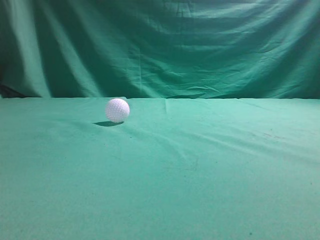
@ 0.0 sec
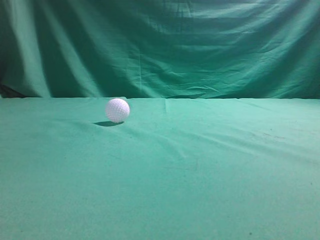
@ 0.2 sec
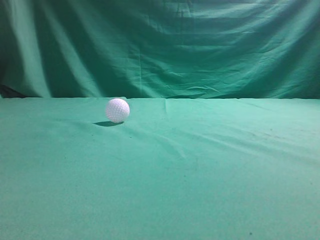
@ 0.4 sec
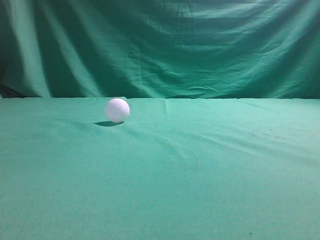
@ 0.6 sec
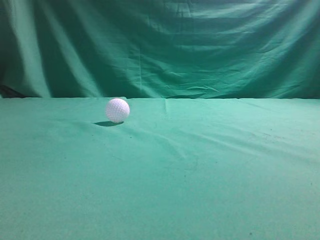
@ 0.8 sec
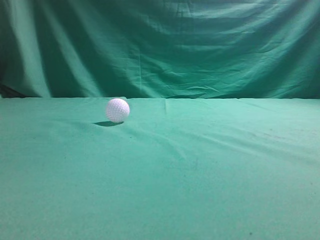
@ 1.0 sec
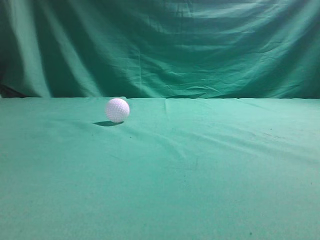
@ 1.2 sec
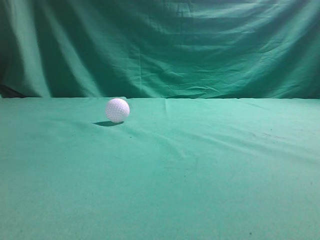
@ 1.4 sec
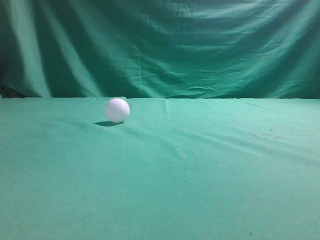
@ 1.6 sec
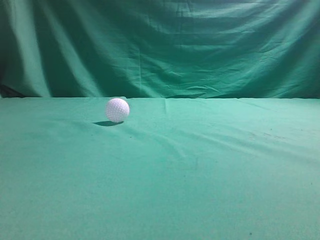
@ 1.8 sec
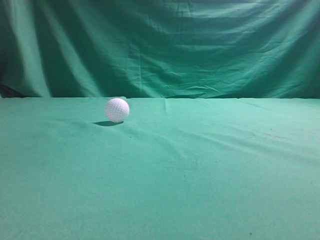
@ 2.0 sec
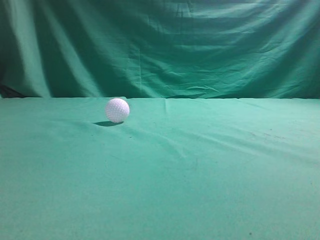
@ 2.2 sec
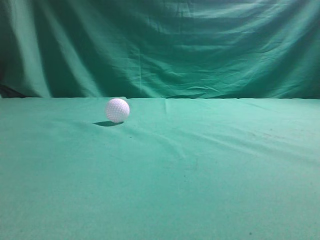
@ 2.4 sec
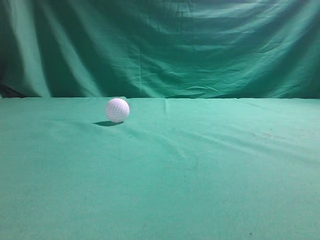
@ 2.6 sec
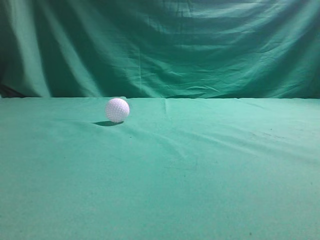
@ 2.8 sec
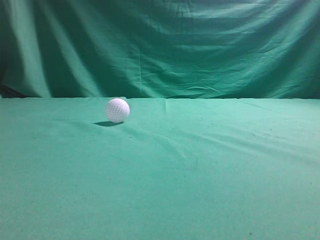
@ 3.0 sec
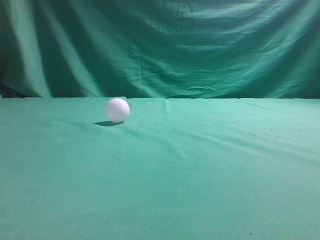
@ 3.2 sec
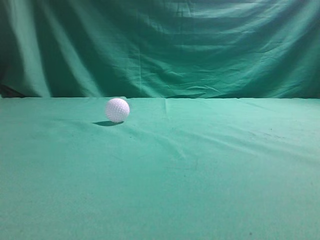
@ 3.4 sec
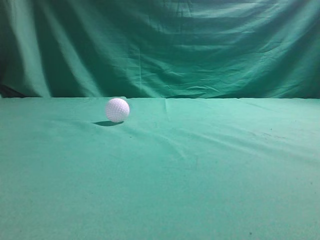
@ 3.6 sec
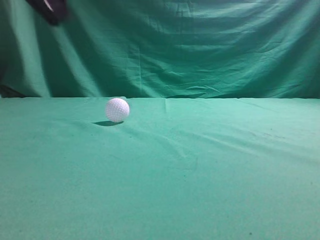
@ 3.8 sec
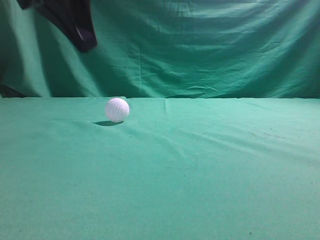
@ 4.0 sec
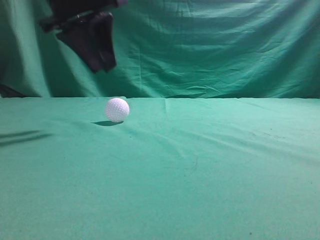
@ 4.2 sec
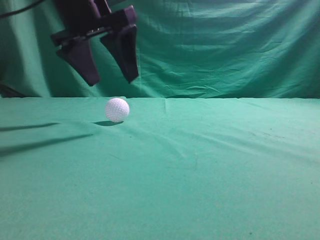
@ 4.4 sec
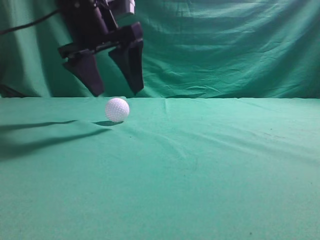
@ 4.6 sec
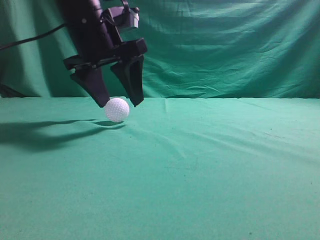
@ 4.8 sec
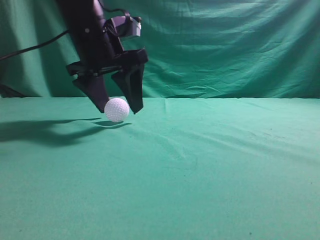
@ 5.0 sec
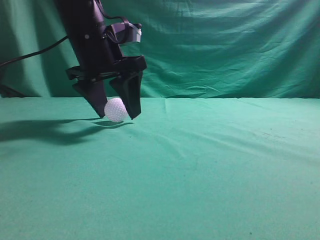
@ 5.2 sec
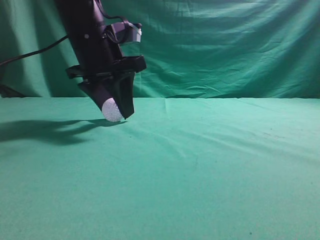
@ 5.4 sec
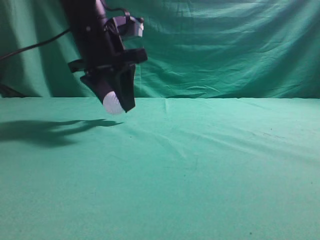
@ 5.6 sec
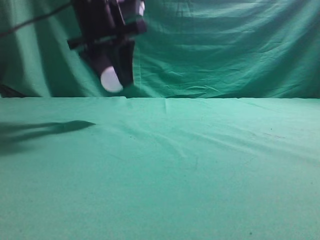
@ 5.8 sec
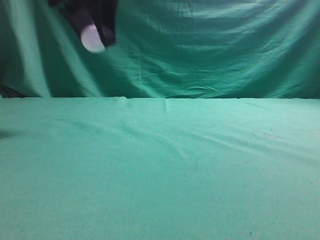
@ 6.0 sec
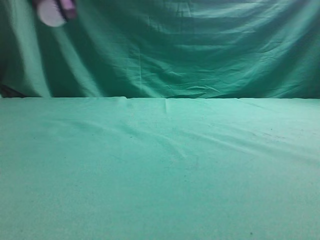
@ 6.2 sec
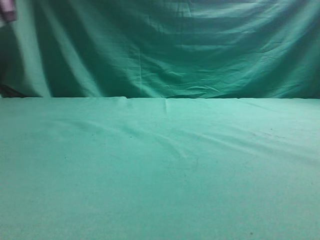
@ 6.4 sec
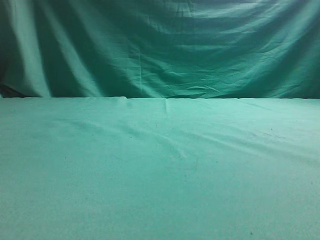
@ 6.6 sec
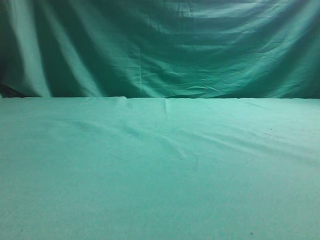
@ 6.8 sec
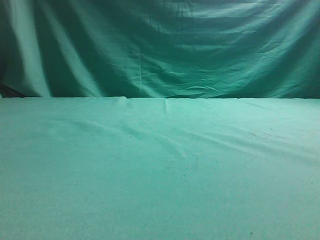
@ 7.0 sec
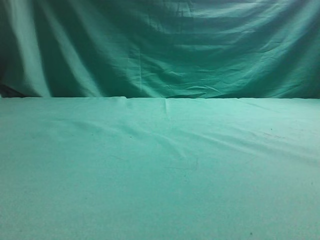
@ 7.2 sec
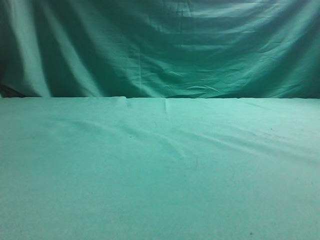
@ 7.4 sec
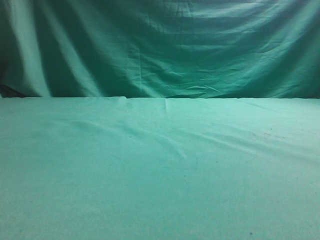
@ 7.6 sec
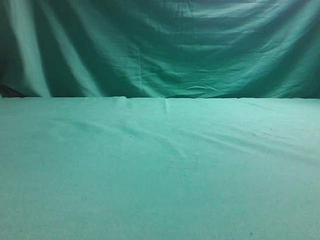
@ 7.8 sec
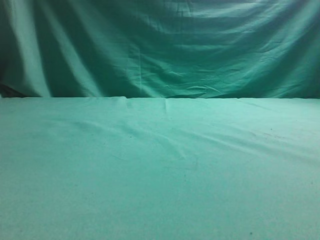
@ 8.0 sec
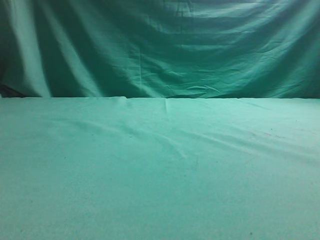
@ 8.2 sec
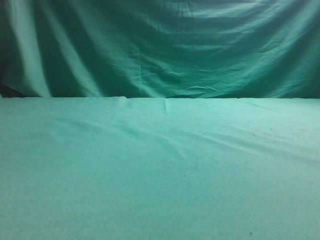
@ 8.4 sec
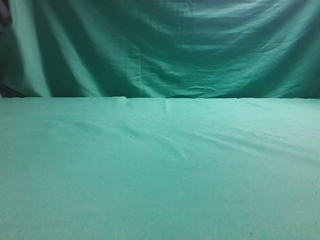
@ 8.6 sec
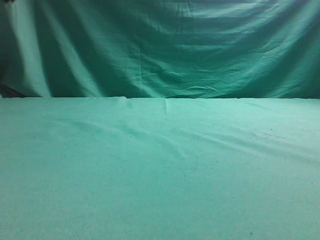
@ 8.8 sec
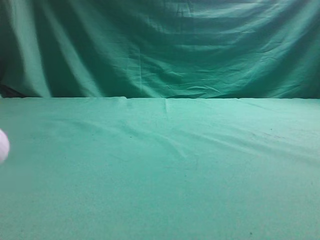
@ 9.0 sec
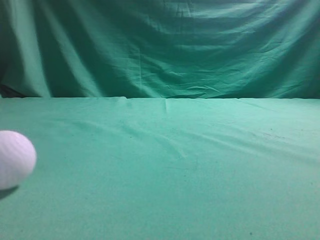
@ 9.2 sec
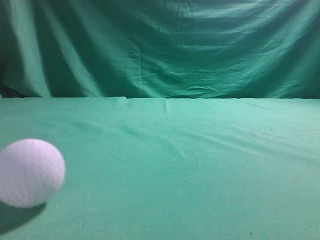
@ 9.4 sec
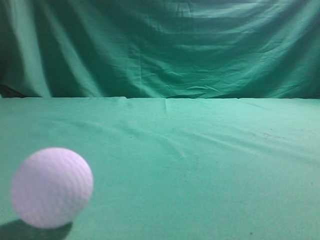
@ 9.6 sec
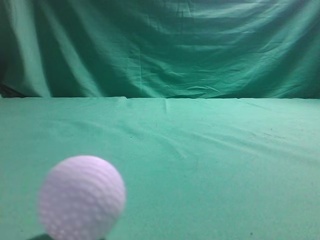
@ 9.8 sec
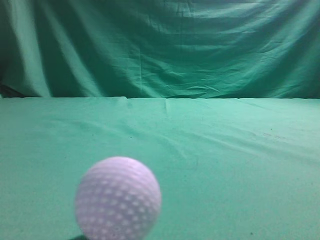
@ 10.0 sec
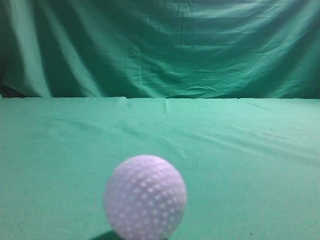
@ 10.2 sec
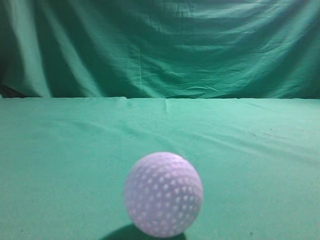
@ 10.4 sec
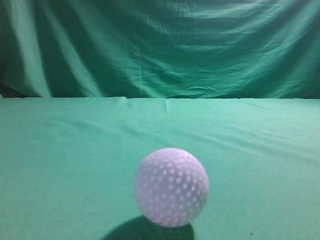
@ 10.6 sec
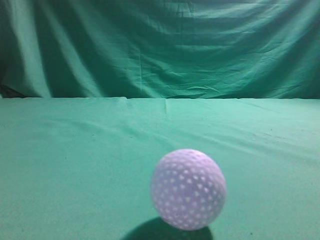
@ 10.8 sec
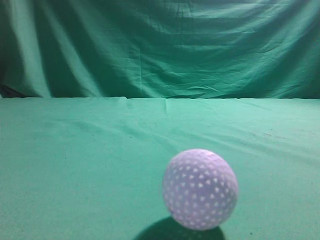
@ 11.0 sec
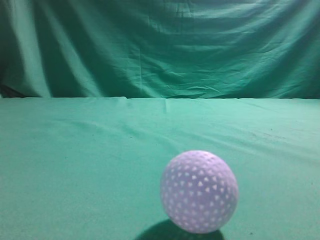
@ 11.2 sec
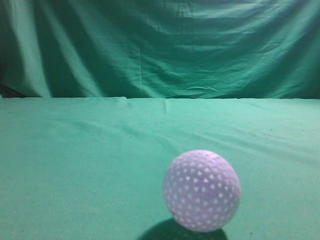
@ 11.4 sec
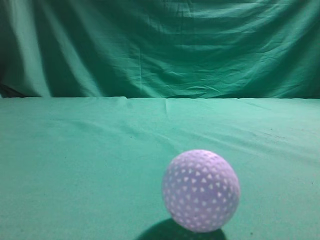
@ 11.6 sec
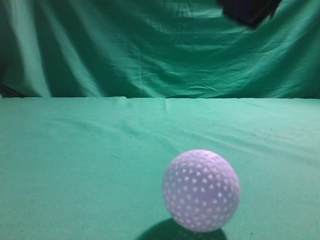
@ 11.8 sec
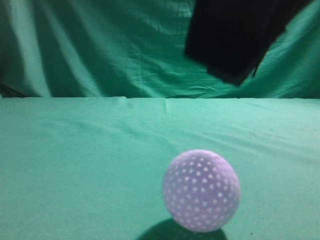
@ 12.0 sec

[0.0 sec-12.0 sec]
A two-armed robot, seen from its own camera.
Task of the whole recording: pick up the ball and place it on the plate, then pick up the ball from the plate and put it in the center of the table.
Step, 0.0 sec to 5.4 sec: Grab the spherical object with your left arm.
Step, 5.8 sec to 8.4 sec: Place the sphere on the white object.
3.0 sec to 4.4 sec: The left gripper moves forward and to the right, some 35 cm, and opens.
4.4 sec to 6.0 sec: The left gripper moves upward, some 10 cm, and closes.
6.0 sec to 7.6 sec: The left gripper moves to the left and downward, about 25 cm.
9.0 sec to 10.4 sec: The right gripper travels upward by approximately 10 cm. The left gripper shifts about 20 cm backward.
10.4 sec to 12.0 sec: The right gripper heads to the left, covering some 20 cm, and opens up.

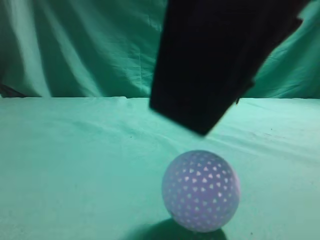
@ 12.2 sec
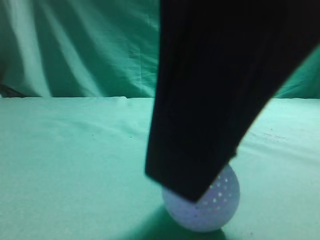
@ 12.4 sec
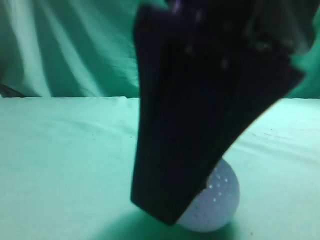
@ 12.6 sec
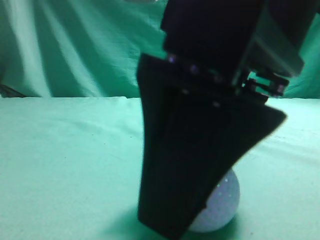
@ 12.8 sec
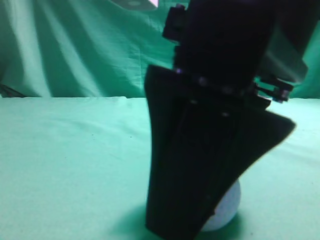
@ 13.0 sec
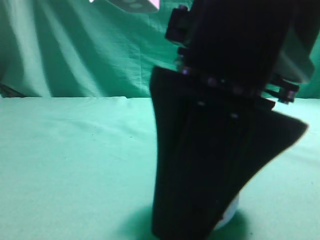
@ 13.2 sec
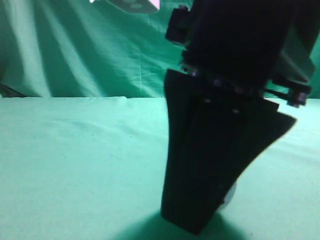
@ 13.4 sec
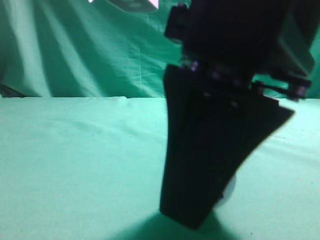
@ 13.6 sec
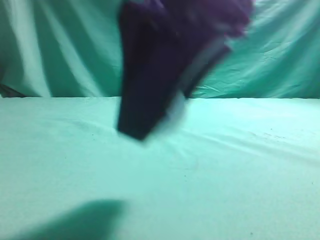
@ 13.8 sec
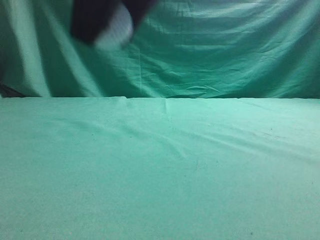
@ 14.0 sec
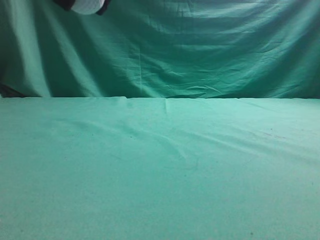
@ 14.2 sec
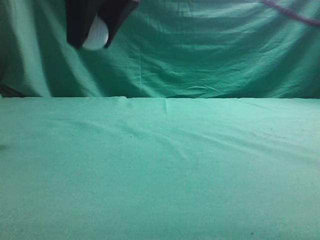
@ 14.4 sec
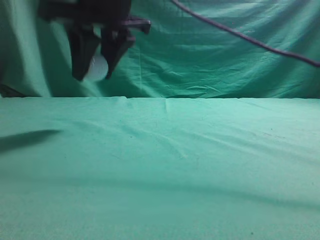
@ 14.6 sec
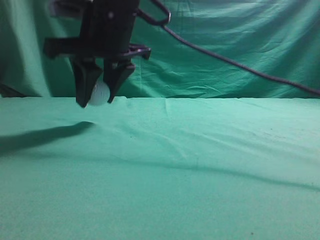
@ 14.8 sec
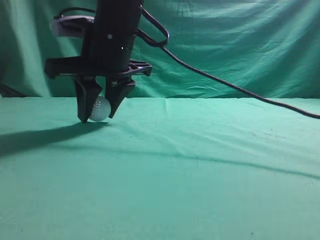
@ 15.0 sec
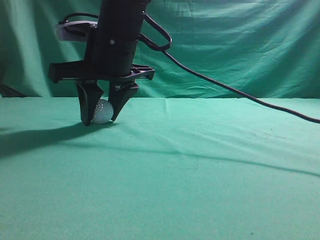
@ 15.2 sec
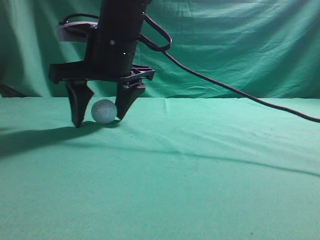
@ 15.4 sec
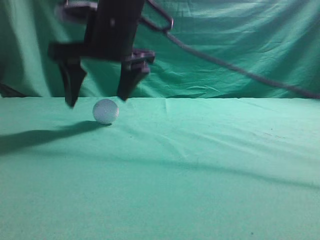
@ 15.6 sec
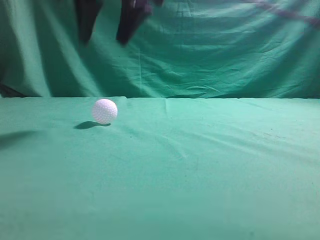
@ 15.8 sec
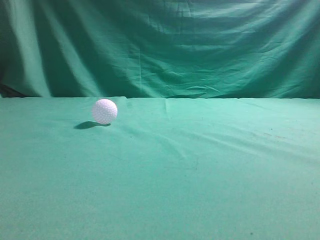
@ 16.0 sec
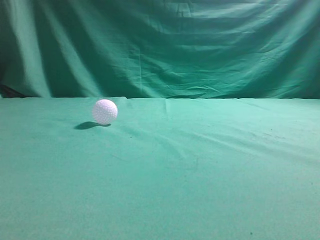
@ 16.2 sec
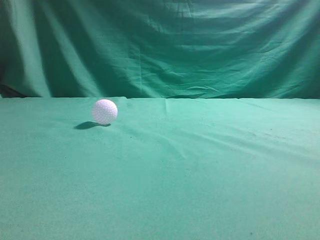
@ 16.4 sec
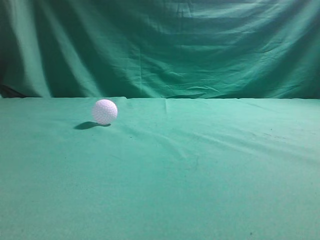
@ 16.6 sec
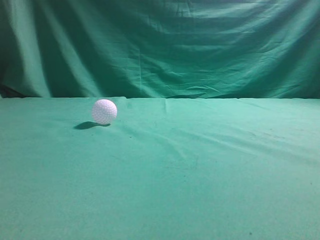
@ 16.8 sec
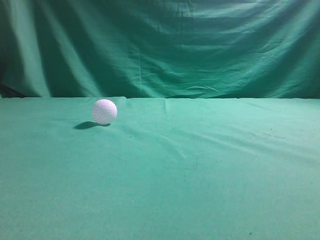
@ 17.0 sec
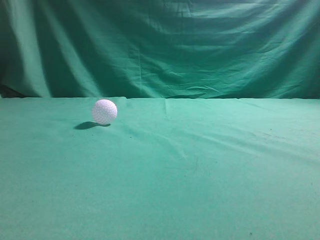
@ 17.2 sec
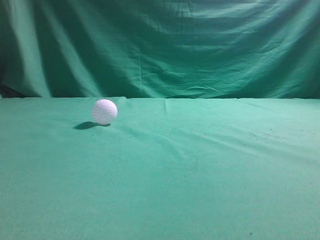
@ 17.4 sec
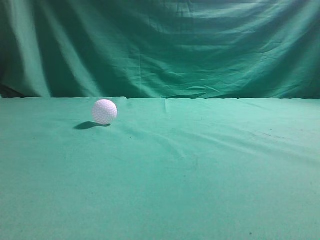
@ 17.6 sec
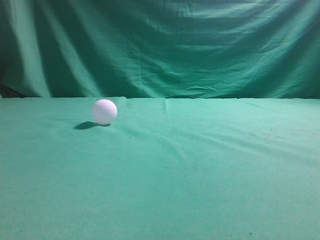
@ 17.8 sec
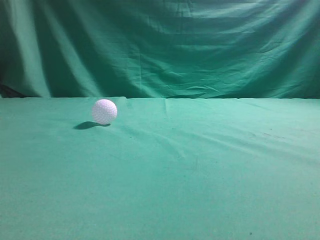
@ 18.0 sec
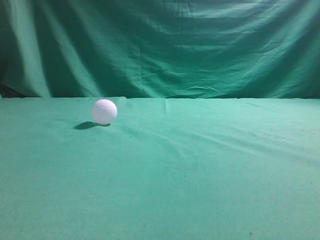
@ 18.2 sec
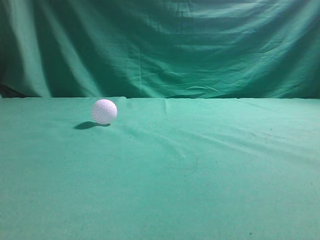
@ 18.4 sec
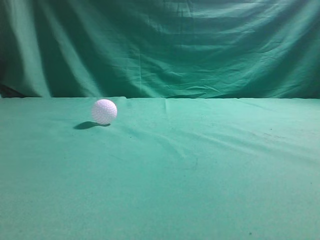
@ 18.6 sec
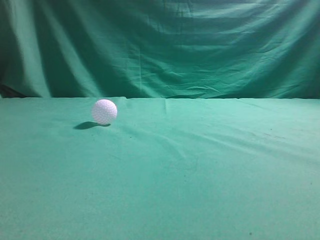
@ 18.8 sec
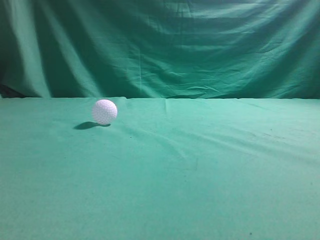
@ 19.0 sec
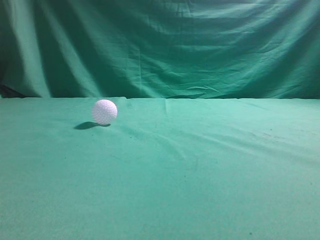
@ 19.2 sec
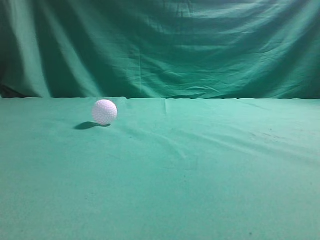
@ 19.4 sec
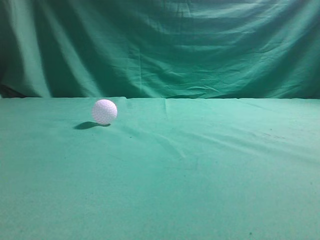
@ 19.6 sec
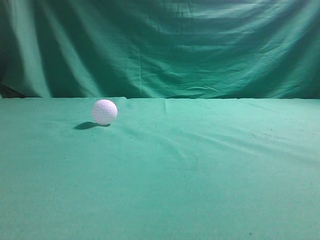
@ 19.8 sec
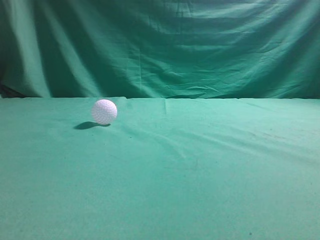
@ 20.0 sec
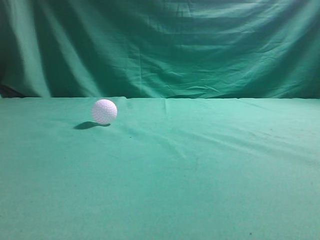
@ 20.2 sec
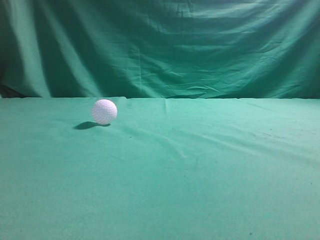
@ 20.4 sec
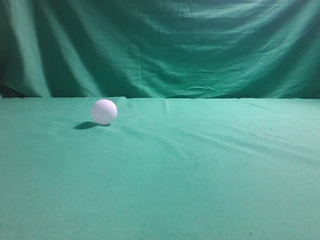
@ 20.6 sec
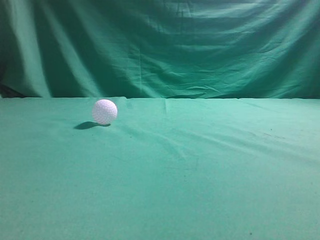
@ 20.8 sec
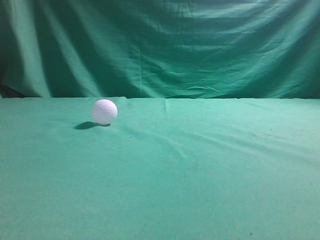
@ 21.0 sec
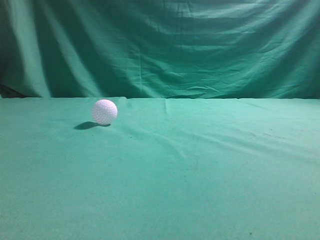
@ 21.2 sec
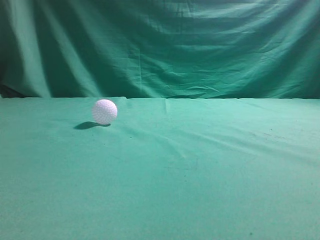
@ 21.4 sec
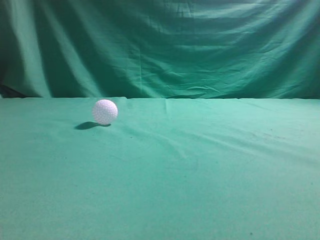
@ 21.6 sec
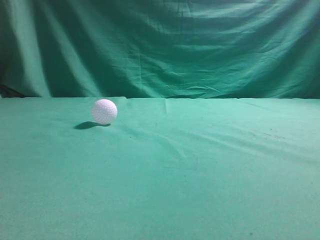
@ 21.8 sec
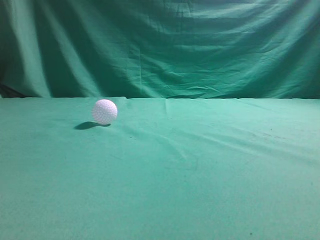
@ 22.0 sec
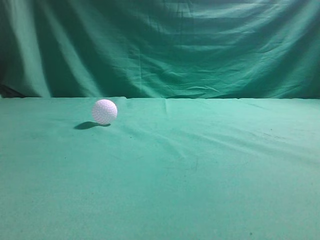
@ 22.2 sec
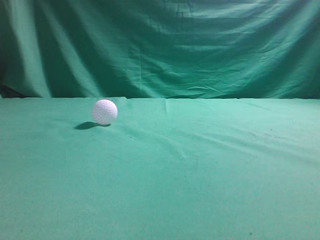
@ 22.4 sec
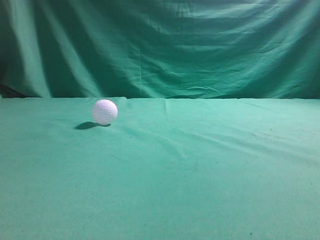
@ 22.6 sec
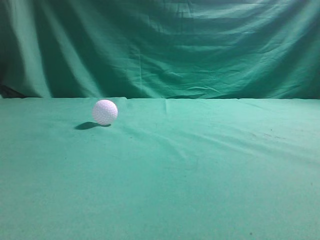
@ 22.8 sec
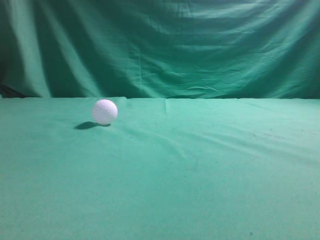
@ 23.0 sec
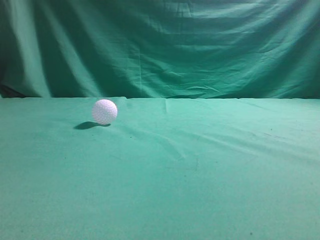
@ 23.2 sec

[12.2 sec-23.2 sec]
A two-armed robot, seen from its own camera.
Task of the whole recording: pick up the ball and place it on the plate, then pick up the ball from the plate and put it in the center of the table.
Step, 13.8 sec to 15.6 sec: Put the picked-up object on the table.
12.2 sec to 13.8 sec: The right gripper ends up some 5 cm from where it was, and closes its fingers.
13.8 sec to 15.4 sec: The right gripper heads forward and to the left, covering some 20 cm, and opens up.
15.4 sec to 17.0 sec: The right gripper is displaced upward, to the right and backward by roughly 40 cm, and closes.
